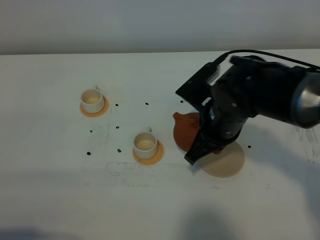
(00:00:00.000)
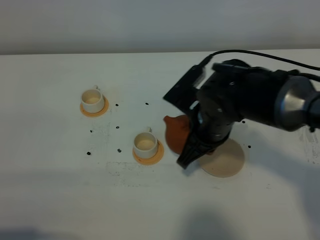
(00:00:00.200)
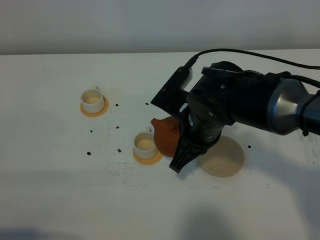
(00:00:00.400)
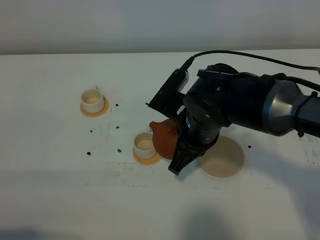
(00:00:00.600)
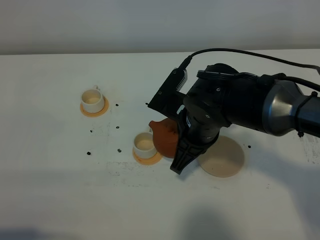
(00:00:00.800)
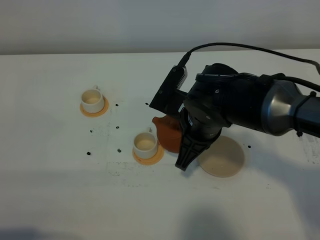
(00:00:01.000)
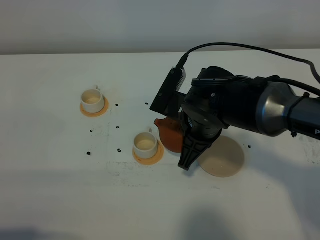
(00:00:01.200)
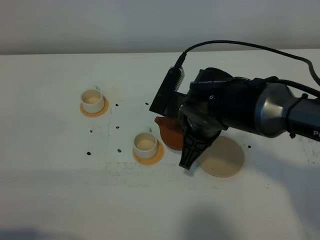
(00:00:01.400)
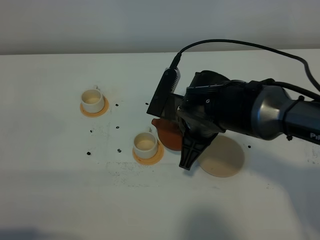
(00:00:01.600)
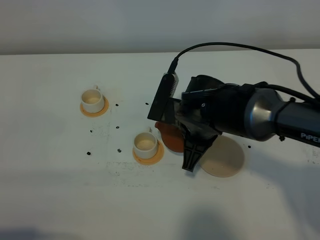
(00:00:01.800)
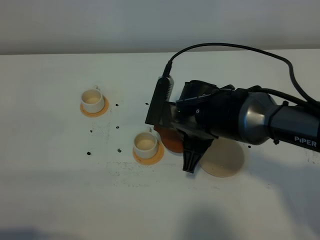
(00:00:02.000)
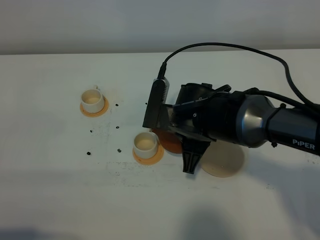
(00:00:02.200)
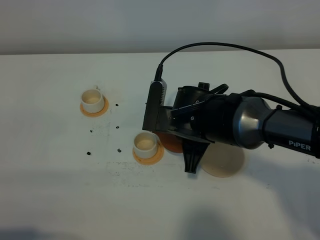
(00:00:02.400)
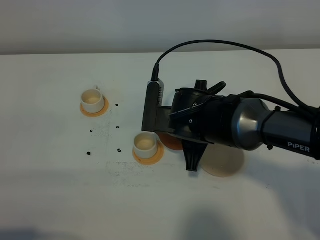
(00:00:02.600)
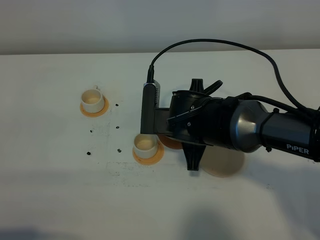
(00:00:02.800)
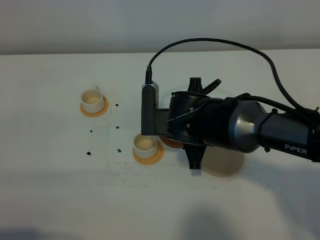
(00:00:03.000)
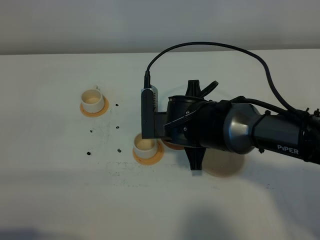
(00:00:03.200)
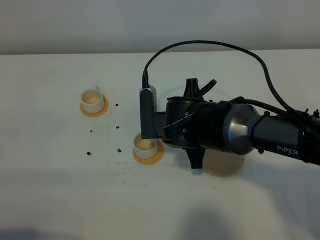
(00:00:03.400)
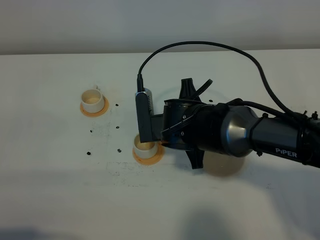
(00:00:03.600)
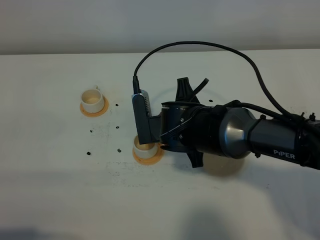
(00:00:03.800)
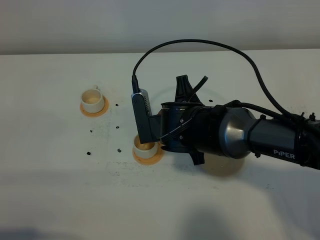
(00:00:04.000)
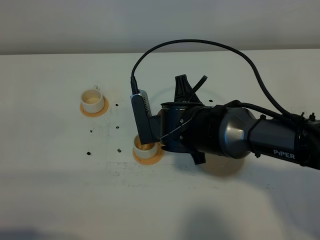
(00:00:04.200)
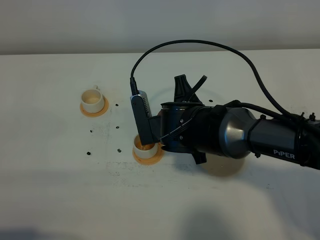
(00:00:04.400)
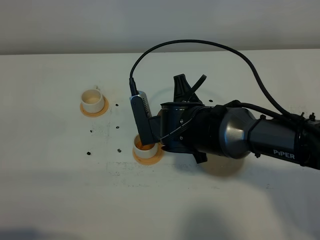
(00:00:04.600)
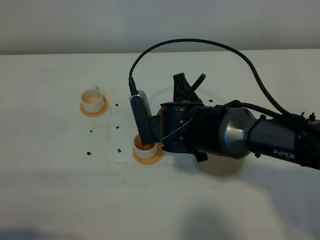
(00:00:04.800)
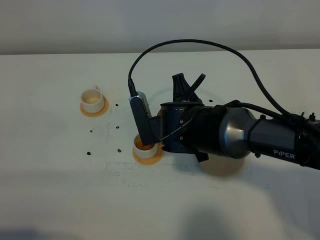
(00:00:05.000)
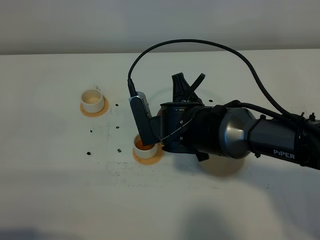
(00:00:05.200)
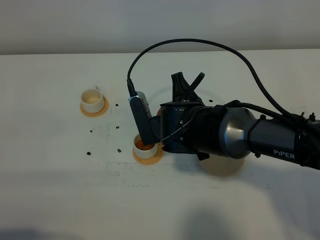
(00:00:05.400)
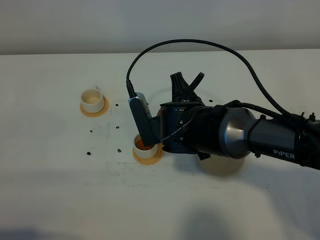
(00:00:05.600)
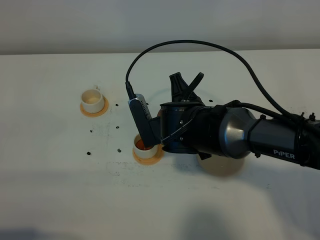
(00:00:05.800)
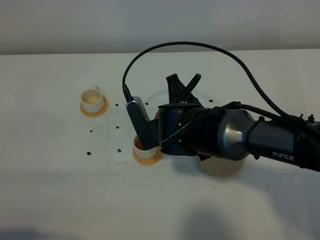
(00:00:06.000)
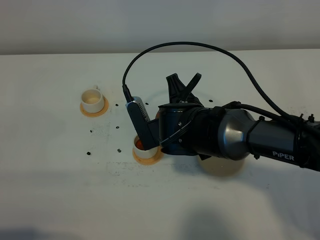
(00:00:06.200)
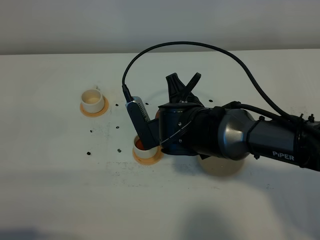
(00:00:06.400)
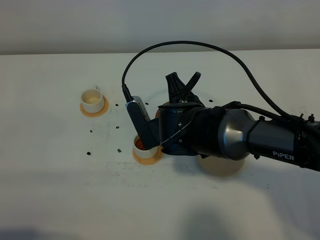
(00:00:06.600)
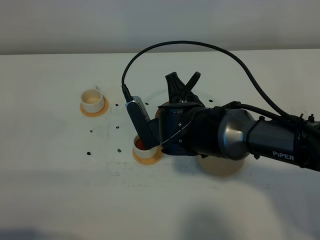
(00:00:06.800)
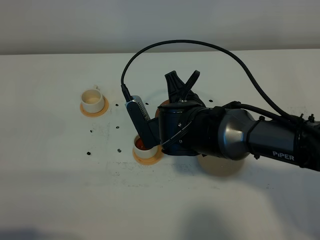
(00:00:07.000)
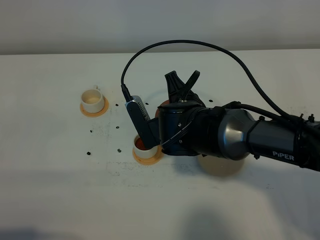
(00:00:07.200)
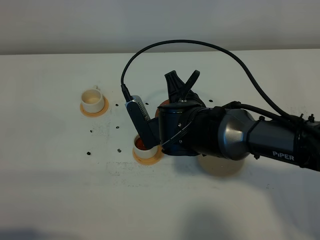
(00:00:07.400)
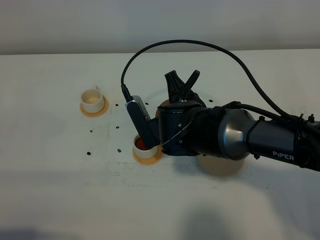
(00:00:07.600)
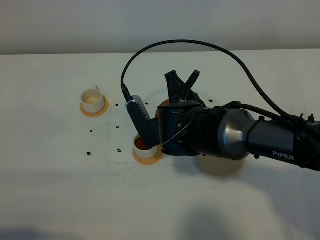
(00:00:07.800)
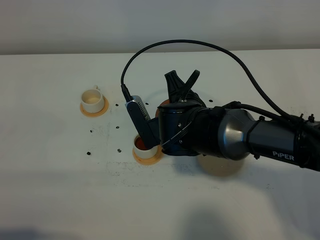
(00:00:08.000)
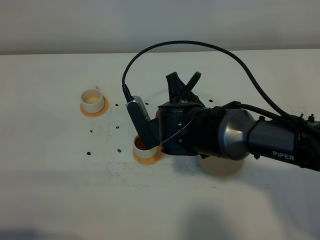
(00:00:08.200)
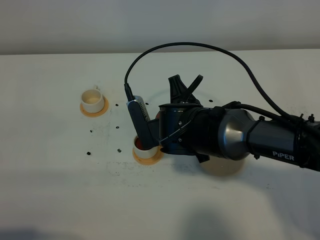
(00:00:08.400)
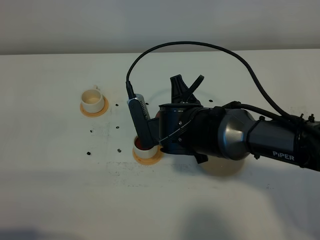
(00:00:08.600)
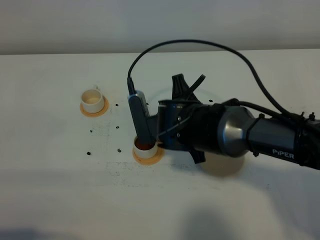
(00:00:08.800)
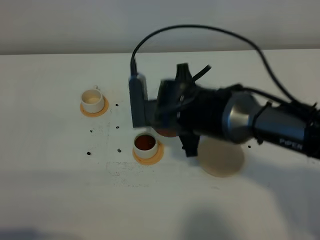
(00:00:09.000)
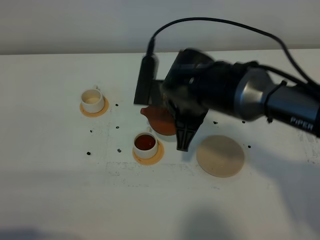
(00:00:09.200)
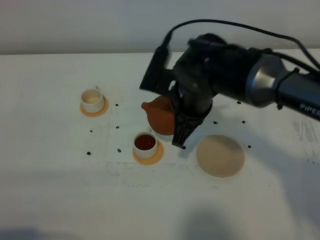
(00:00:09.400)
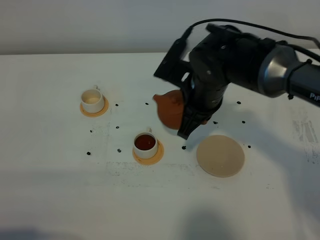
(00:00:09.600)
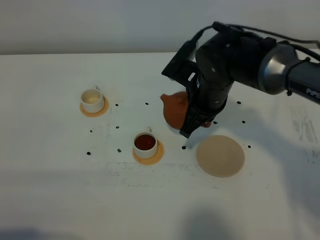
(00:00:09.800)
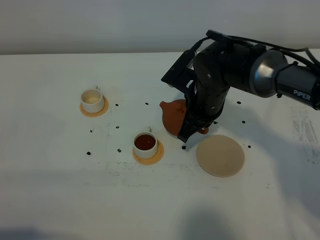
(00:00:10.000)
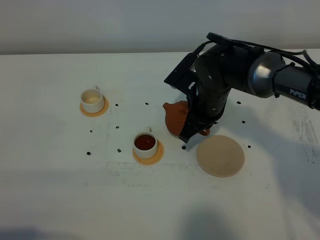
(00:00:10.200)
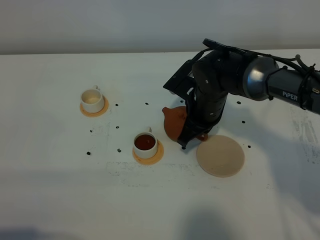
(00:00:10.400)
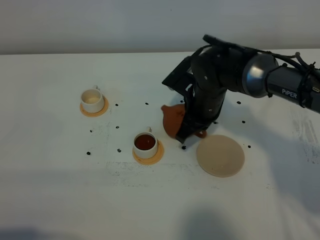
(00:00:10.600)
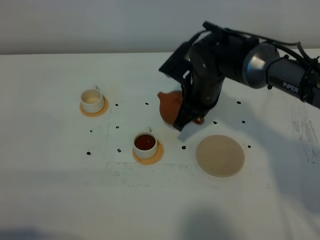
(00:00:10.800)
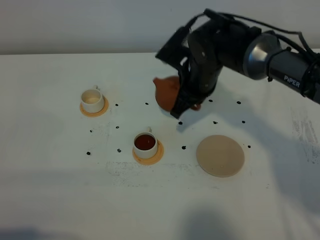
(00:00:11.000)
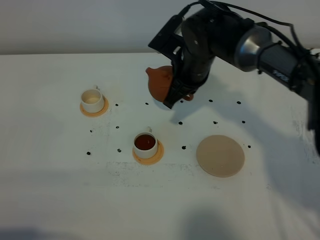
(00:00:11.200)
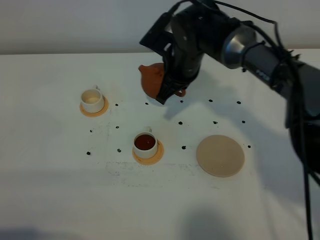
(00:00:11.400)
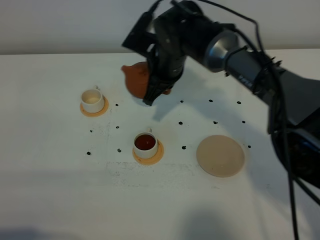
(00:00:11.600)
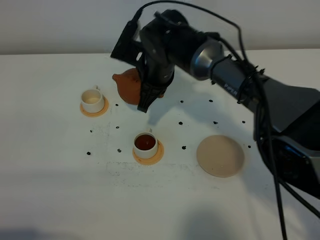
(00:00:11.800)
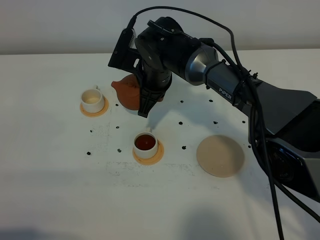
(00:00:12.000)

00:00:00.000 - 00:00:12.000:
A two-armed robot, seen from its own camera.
Task of the whole recording: grasp the brown teapot and pour the tea into the two white teacups one by one, put the brown teapot back in its original place.
Step, 00:00:00.000 - 00:00:08.800: Pour tea into the teacup with the right gripper.
00:00:03.000 - 00:00:04.400: The grippers move only a little.
00:00:04.400 - 00:00:06.000: The grippers make only small movements.
00:00:06.000 - 00:00:07.600: Neither gripper changes place.
00:00:09.000 - 00:00:10.400: The right gripper travels forward and downward by roughly 10 cm.
00:00:10.400 - 00:00:12.000: The right gripper shifts about 10 cm to the left.

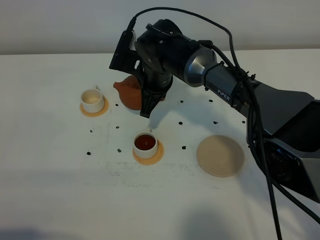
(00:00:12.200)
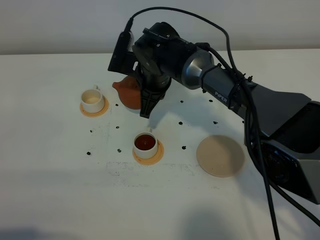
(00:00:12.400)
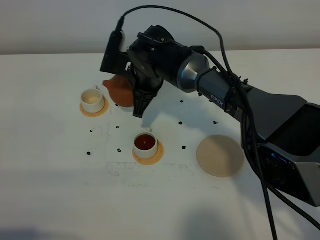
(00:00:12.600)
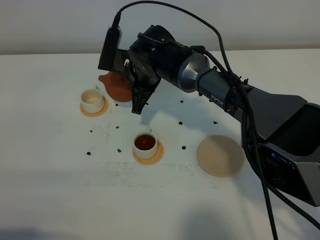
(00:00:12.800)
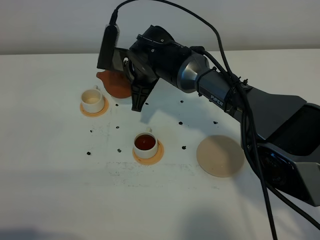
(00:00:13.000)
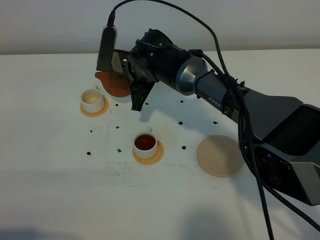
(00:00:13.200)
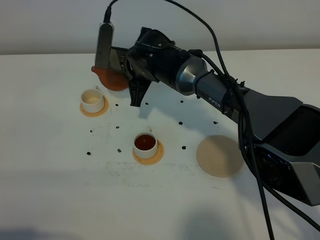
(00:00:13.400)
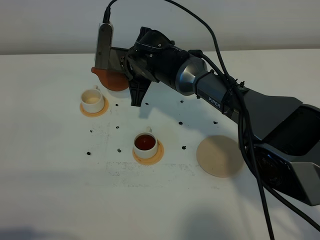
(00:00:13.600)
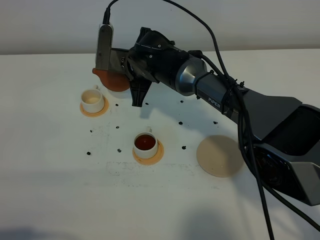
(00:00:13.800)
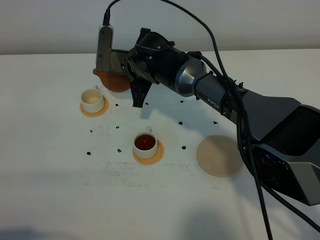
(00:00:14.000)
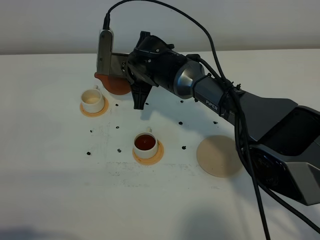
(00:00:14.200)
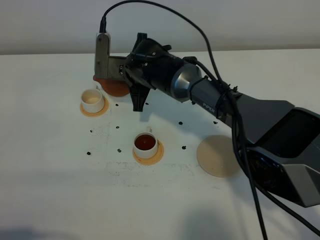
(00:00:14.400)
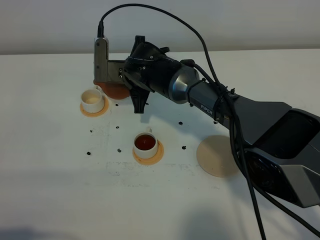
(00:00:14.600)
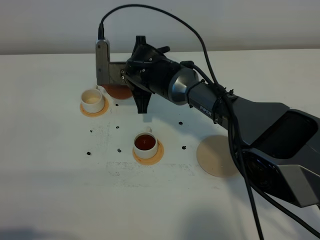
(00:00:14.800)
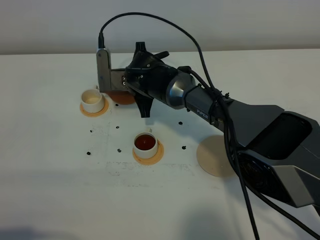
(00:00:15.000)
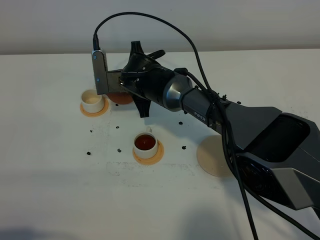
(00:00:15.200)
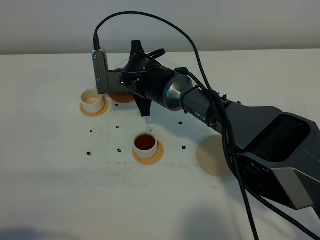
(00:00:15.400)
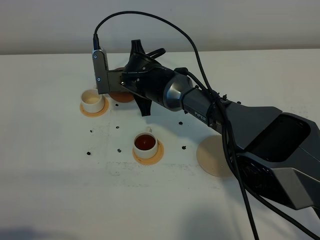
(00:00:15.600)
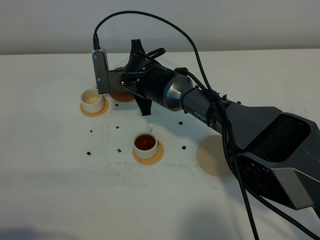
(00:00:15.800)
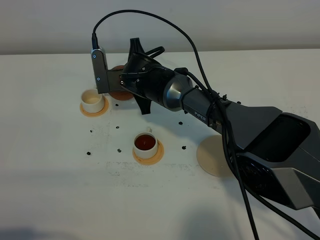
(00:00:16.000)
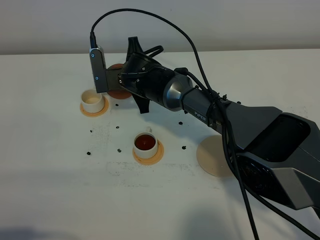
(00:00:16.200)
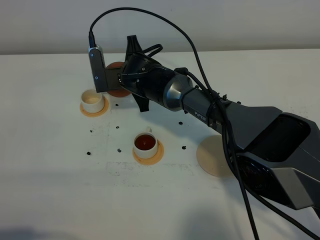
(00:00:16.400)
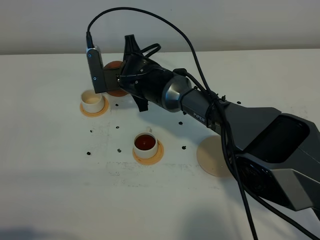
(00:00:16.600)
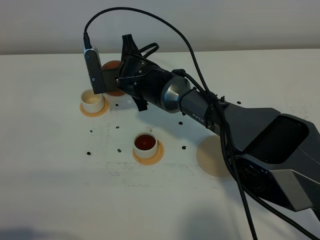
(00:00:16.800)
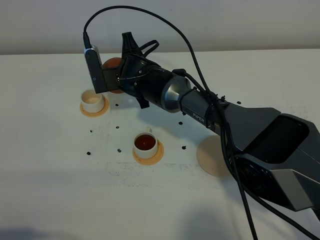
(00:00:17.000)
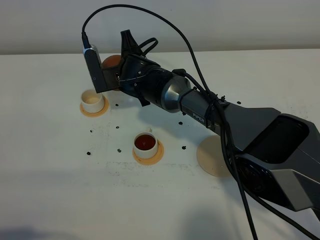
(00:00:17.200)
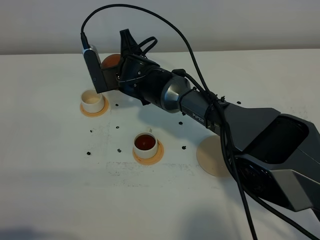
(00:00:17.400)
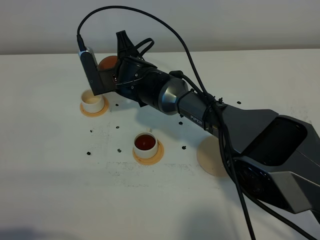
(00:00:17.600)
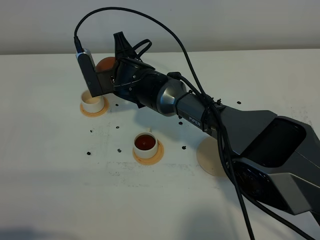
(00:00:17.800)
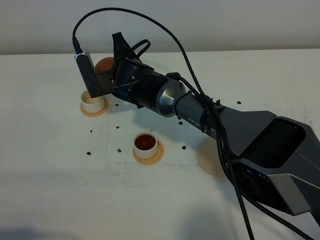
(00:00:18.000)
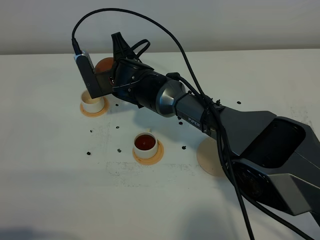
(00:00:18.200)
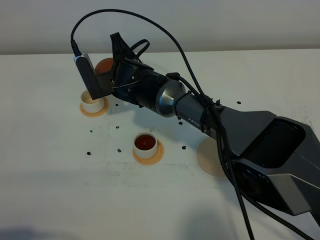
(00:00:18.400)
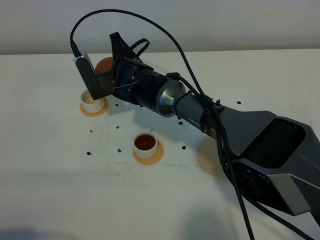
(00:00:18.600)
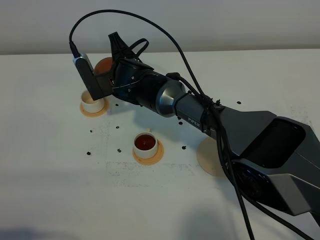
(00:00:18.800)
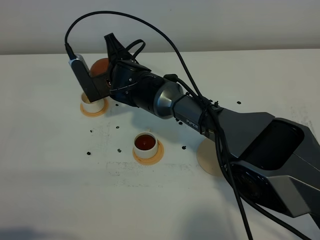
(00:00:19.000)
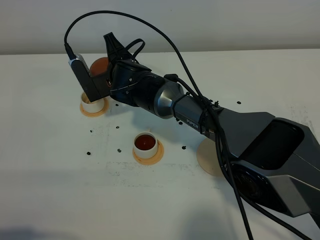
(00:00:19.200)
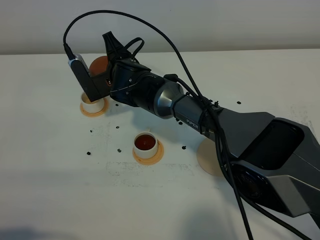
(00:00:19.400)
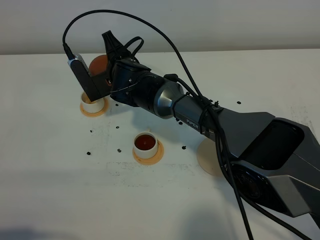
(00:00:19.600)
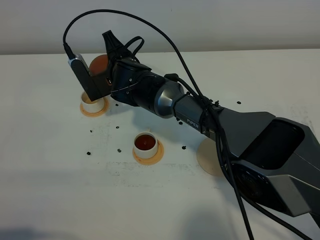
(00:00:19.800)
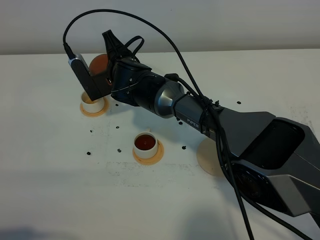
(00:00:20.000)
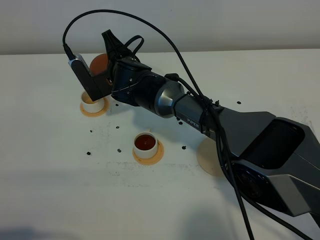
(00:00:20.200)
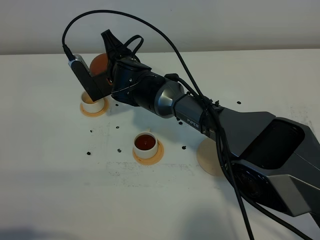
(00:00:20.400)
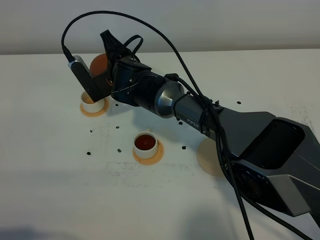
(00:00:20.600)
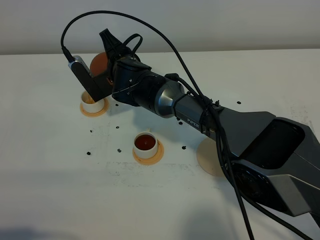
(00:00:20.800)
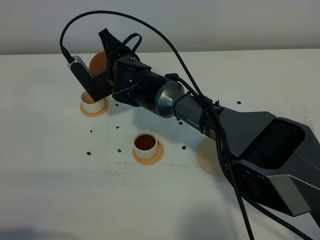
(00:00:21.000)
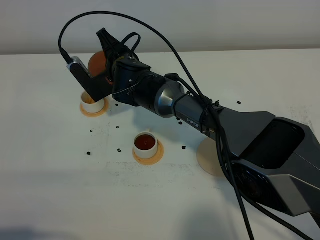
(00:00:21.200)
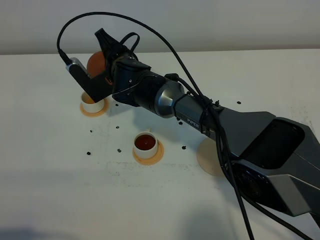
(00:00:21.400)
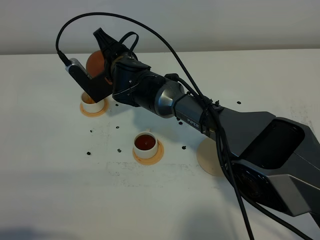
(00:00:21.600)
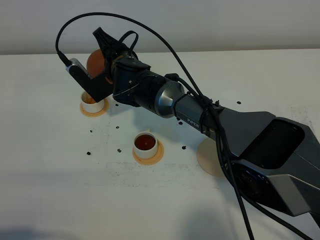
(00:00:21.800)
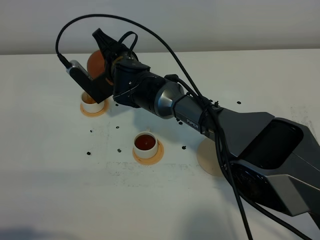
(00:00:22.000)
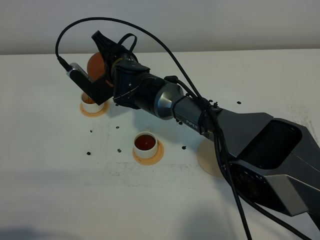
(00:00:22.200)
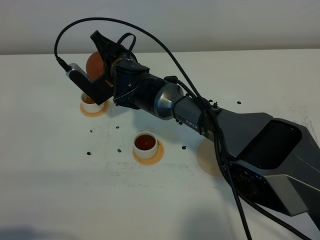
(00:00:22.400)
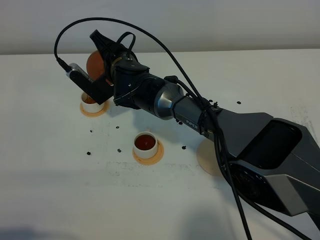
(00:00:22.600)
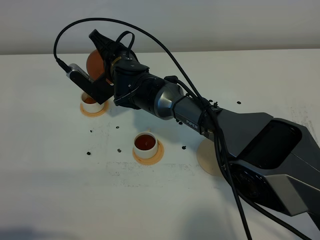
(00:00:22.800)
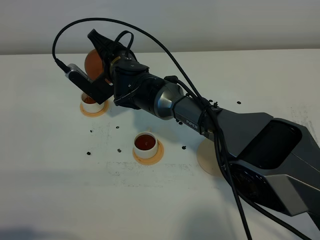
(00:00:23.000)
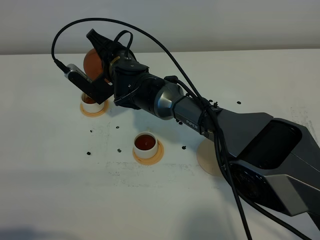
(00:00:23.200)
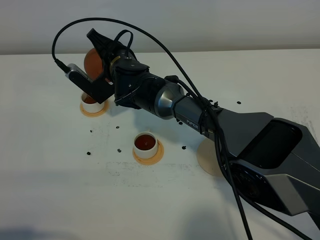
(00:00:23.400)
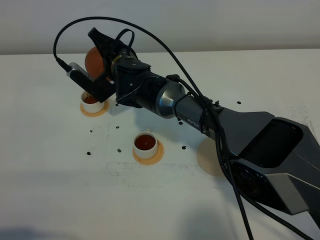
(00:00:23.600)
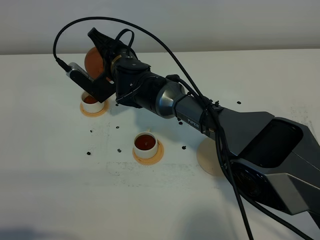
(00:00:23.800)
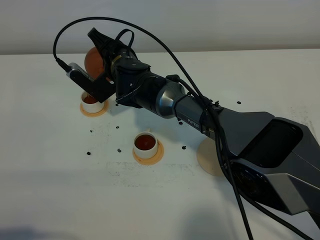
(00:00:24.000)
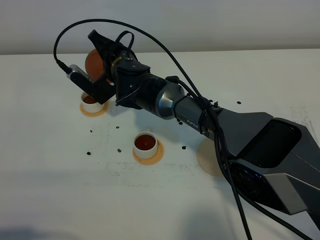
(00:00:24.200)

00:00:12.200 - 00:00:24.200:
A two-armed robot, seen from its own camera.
Task of the whole recording: grasp the brown teapot and pour the tea into the two white teacups one by one, put the brown teapot back in its original place.
00:00:15.200 - 00:00:18.200: The grippers move only a little.
00:00:18.200 - 00:00:21.200: The grippers make only small movements.
00:00:21.200 - 00:00:22.600: There are only small adjustments of the grippers.
00:00:22.600 - 00:00:24.200: Both grippers stay about where they are.
